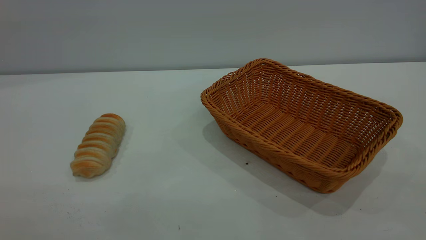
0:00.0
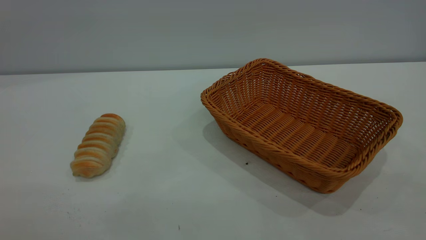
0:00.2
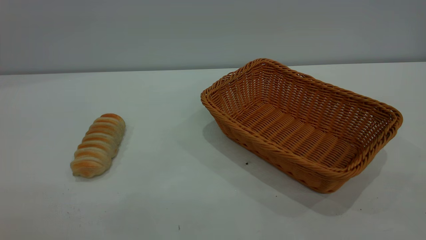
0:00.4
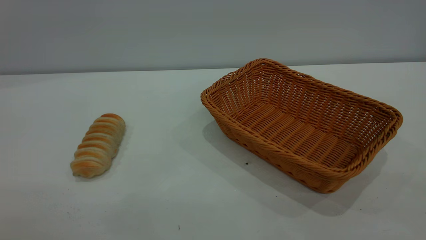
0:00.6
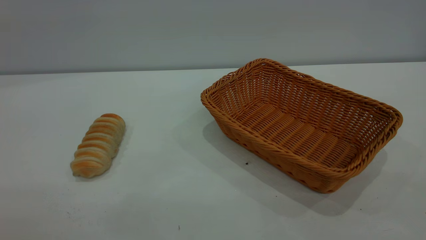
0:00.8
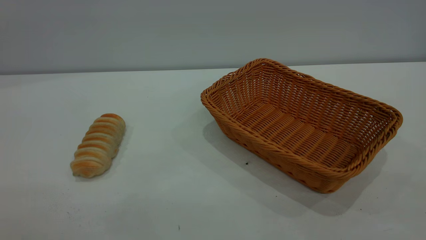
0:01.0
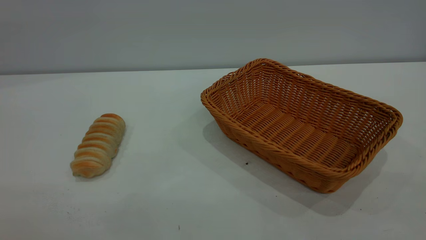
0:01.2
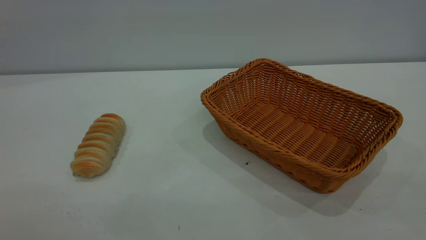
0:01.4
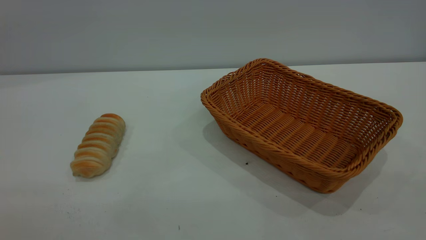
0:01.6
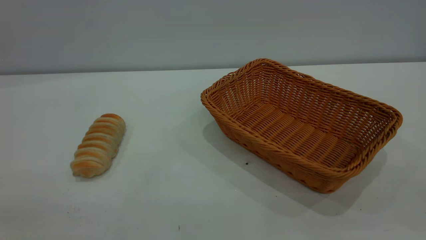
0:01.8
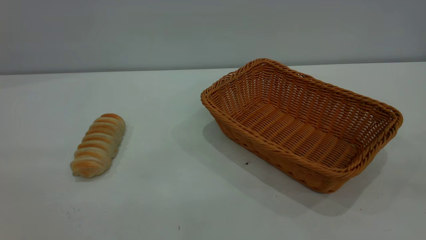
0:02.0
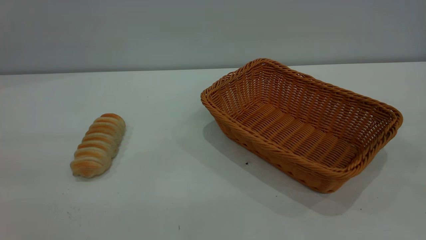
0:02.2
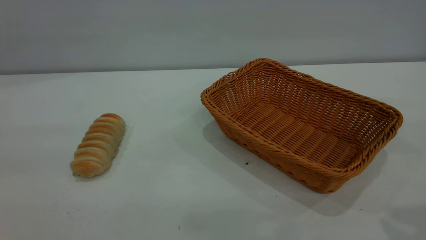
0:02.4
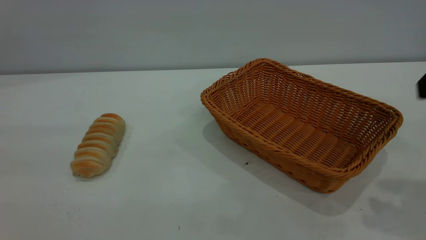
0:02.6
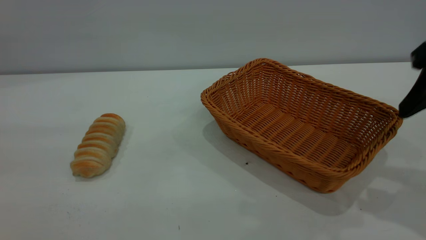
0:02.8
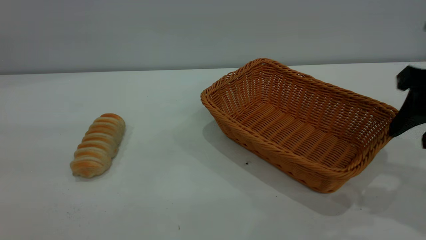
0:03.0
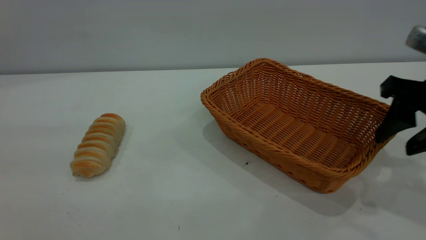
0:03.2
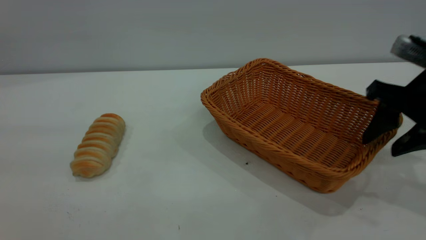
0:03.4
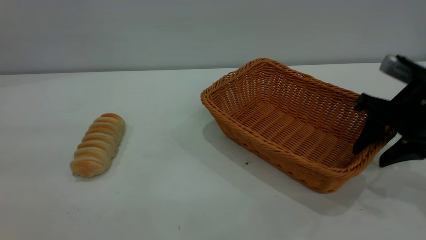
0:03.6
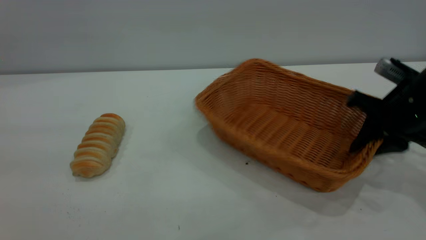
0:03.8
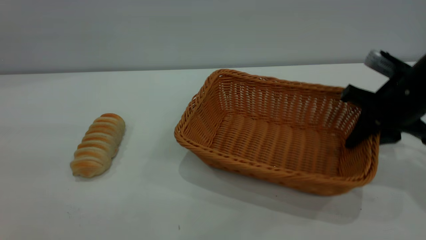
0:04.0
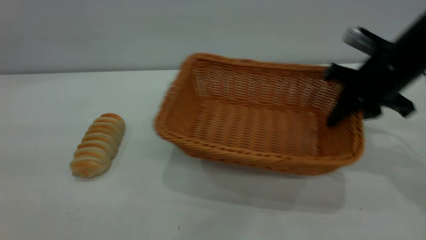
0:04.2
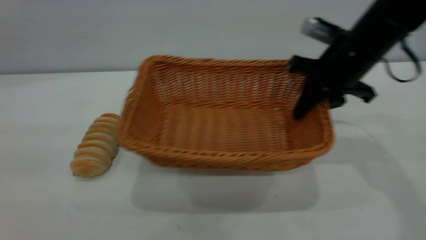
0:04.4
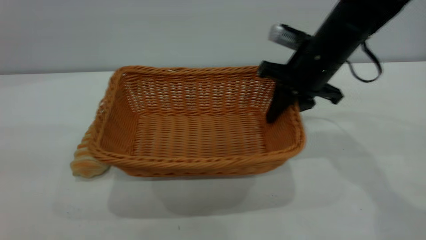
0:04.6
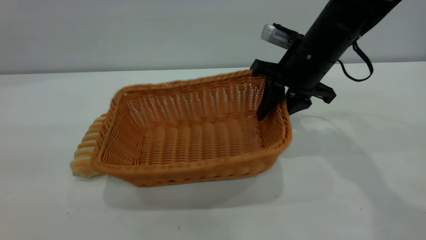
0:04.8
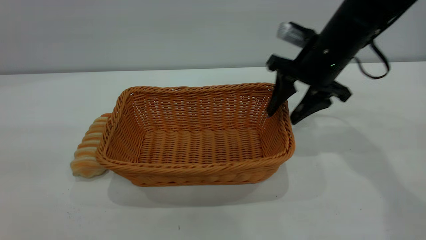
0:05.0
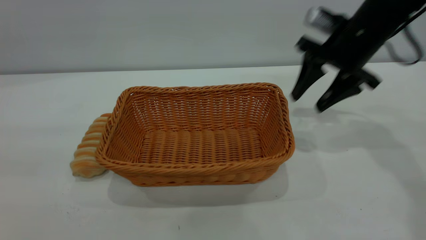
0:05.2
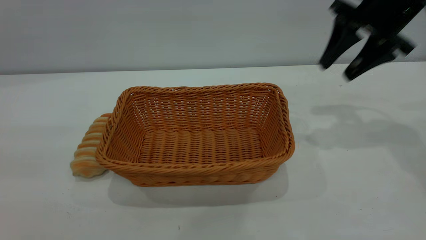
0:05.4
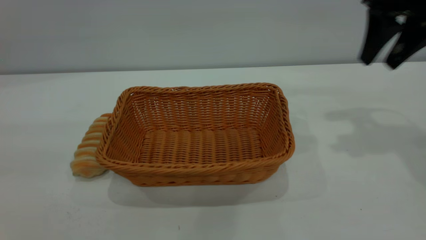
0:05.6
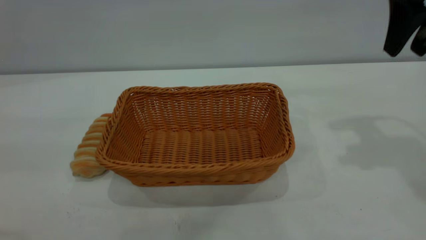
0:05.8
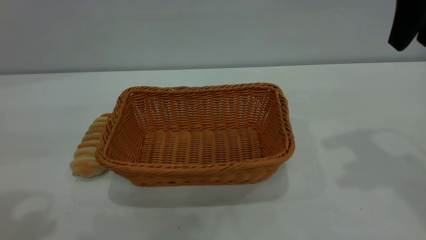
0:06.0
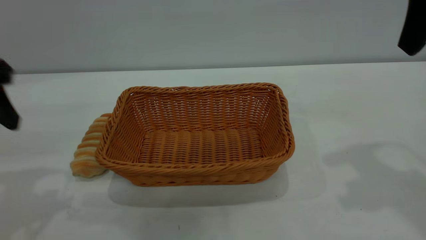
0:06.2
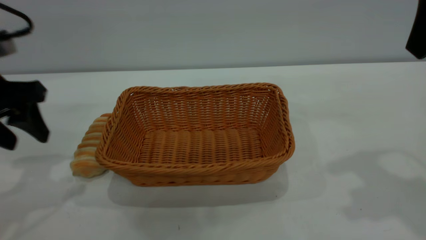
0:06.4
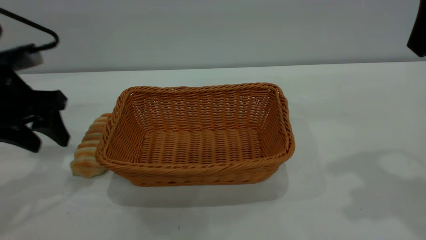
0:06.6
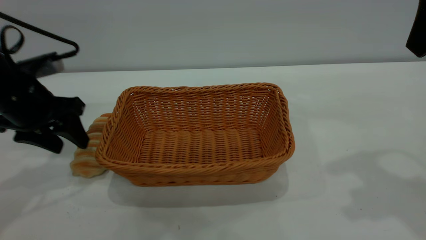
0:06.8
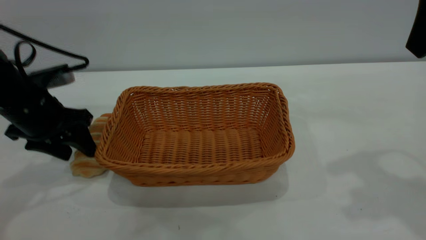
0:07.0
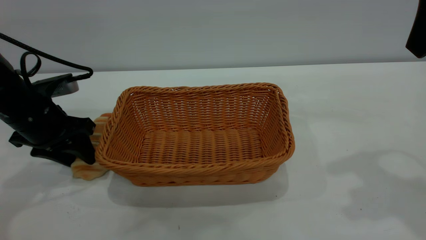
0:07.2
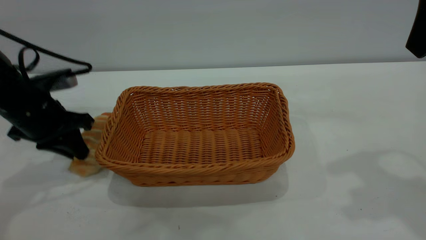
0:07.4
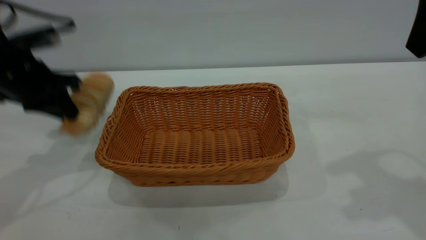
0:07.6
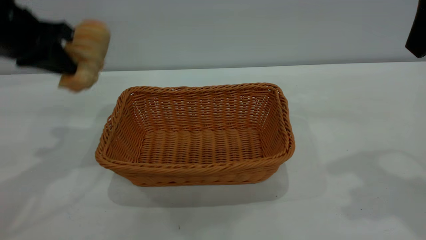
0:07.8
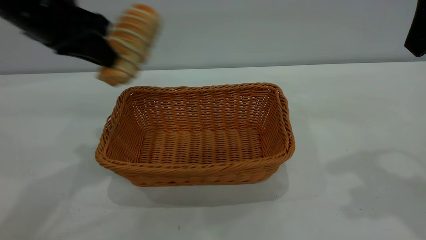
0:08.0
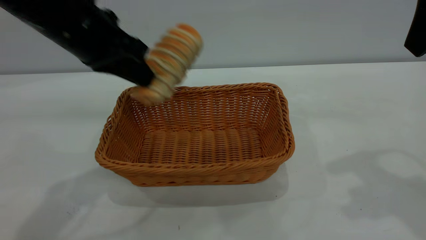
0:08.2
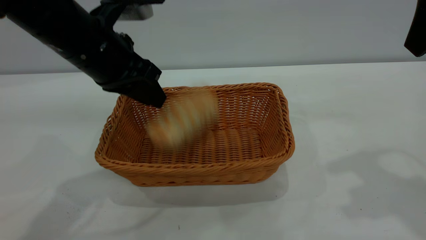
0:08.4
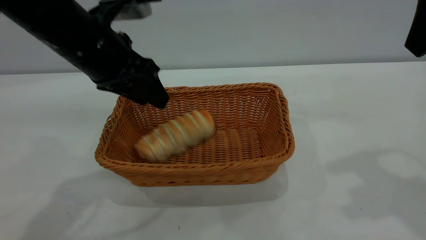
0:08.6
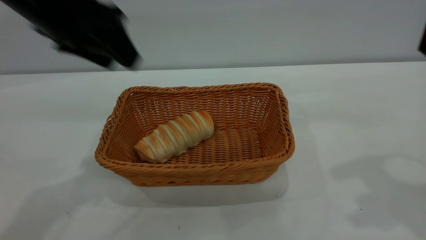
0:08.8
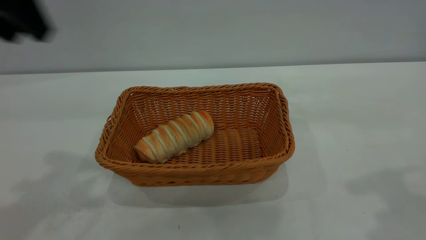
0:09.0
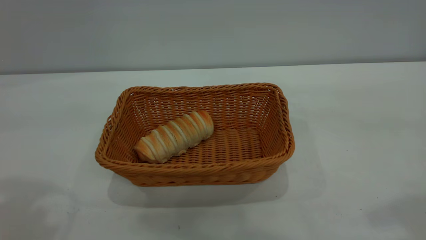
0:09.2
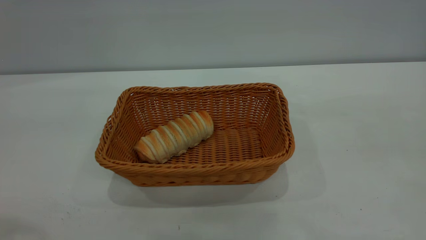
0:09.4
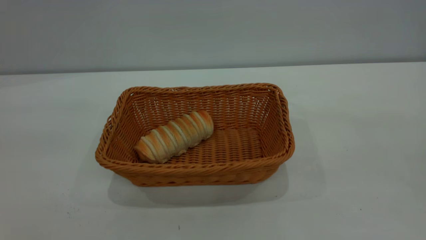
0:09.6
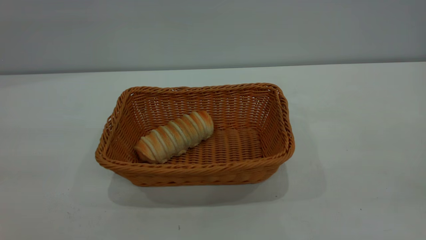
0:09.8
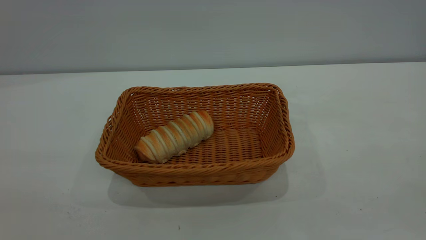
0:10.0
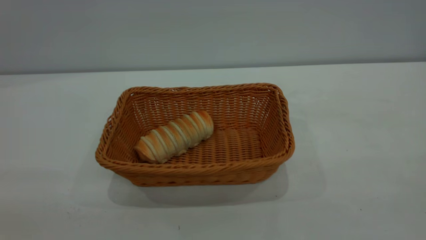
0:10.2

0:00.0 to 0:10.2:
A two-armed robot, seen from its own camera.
Task of the whole recording: One hand grasps the yellow basket and places it in the middle of the table, while the other hand picks up the long bread and puts it into the yellow basket.
Step, 0:00.0 to 0:05.0: Move the basket to the center of view.
Step, 0:07.6 to 0:08.6: place the bread into the basket.
0:00.0 to 0:01.4: The two grippers keep their place.
0:01.4 to 0:03.0: The right gripper shifts roughly 30 cm forward and downward.
0:03.0 to 0:04.4: The right gripper heads forward and to the left, covering some 15 cm, and closes its fingers.
0:04.4 to 0:05.8: The left gripper moves forward, some 10 cm. Meanwhile the right gripper shifts about 15 cm upward and to the right, and opens its fingers.
0:05.8 to 0:07.2: The right gripper shifts roughly 10 cm backward, while the left gripper is displaced downward and forward by some 30 cm.
0:07.2 to 0:08.8: The left gripper moves up and down over roughly 20 cm, changing direction 2 times, and closes, then reopens.
0:08.8 to 0:10.2: The left gripper goes about 35 cm backward.

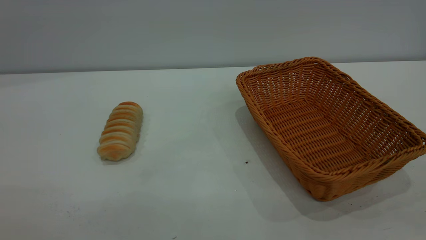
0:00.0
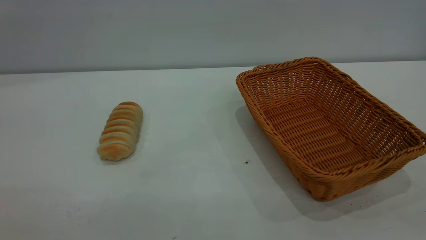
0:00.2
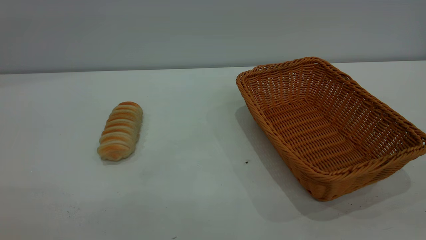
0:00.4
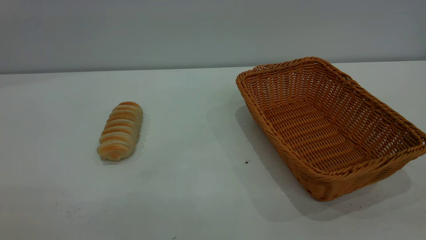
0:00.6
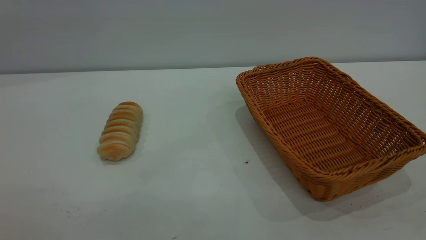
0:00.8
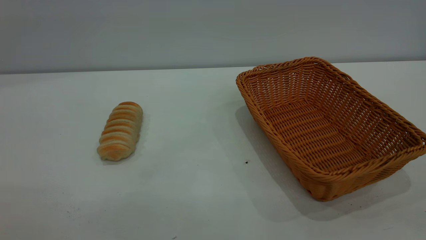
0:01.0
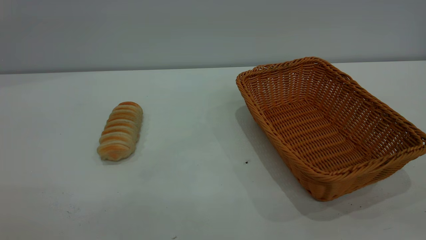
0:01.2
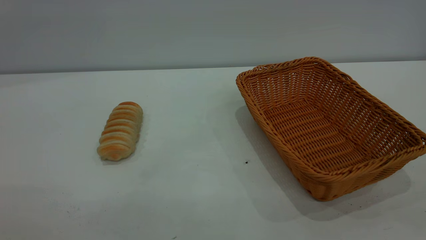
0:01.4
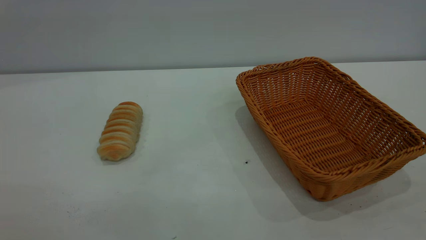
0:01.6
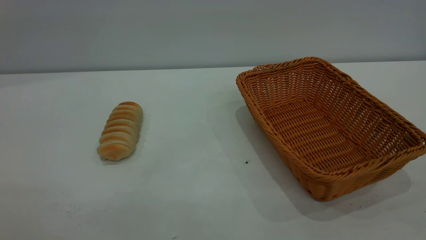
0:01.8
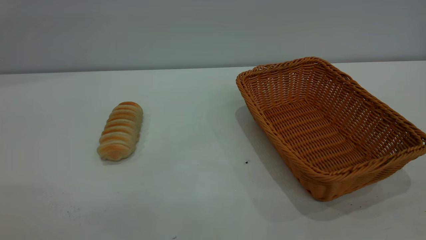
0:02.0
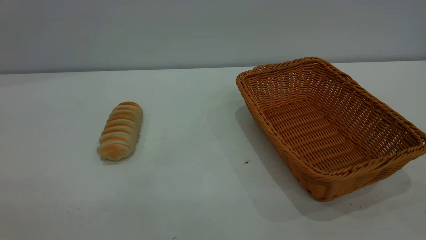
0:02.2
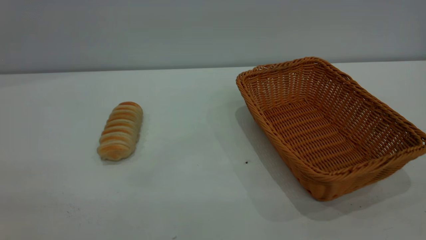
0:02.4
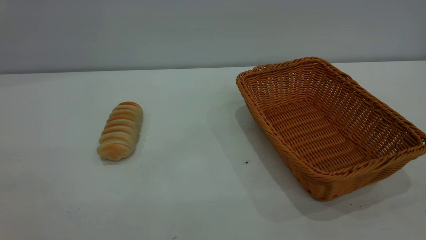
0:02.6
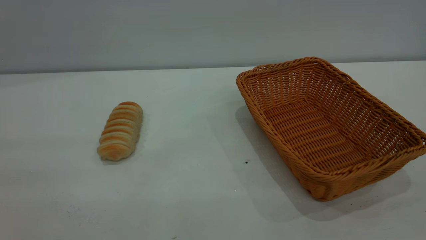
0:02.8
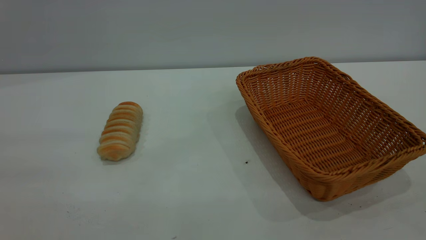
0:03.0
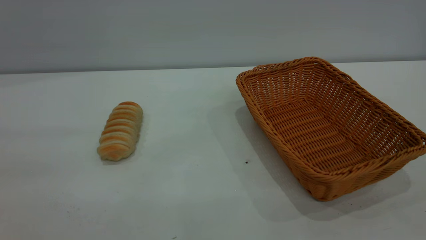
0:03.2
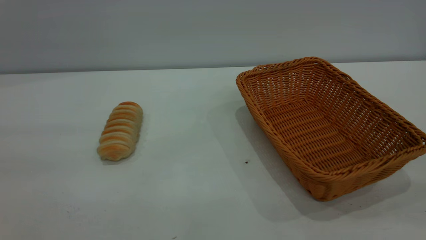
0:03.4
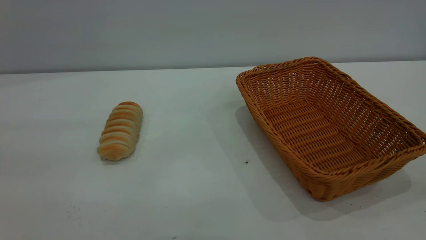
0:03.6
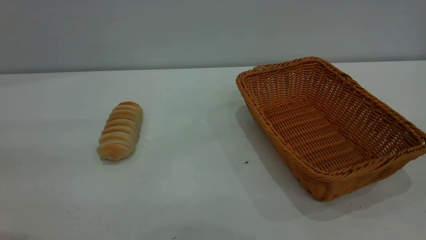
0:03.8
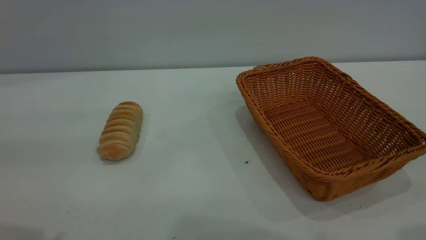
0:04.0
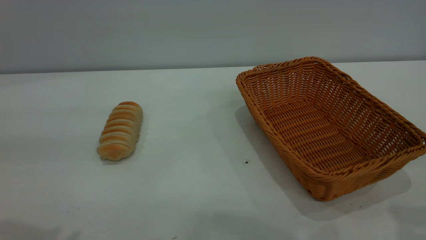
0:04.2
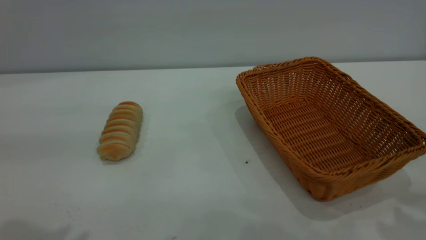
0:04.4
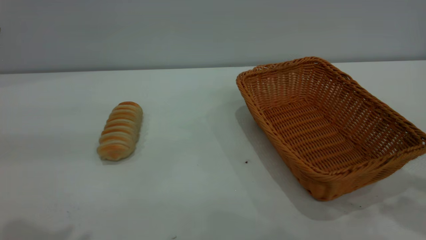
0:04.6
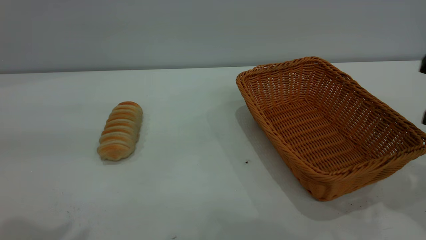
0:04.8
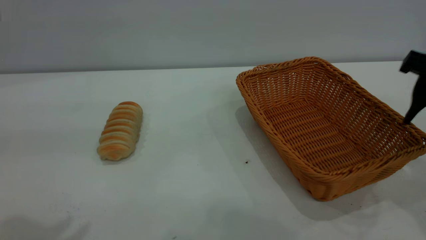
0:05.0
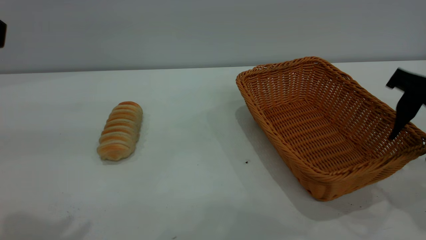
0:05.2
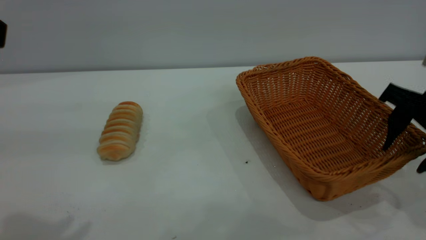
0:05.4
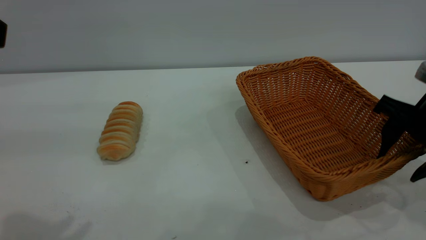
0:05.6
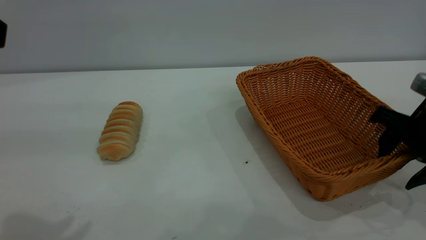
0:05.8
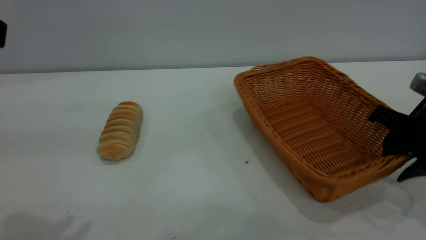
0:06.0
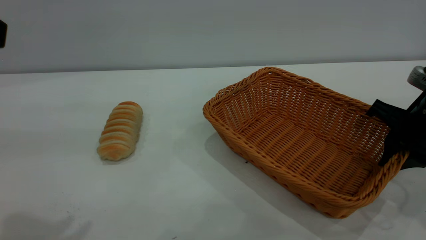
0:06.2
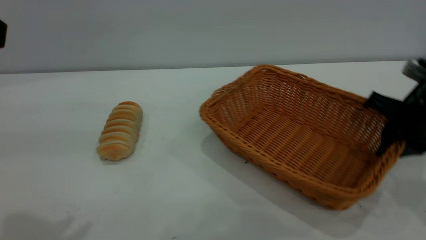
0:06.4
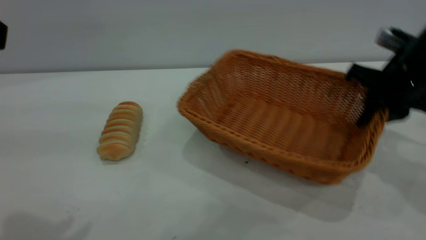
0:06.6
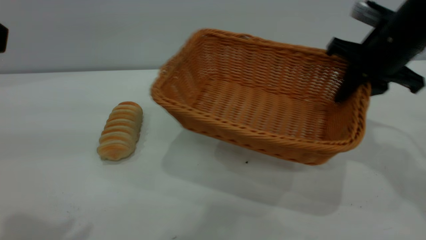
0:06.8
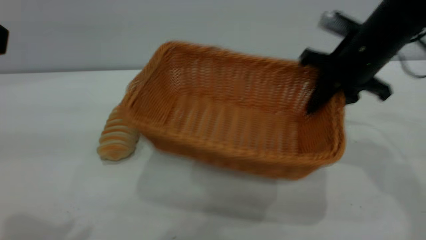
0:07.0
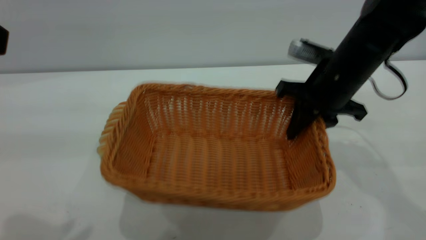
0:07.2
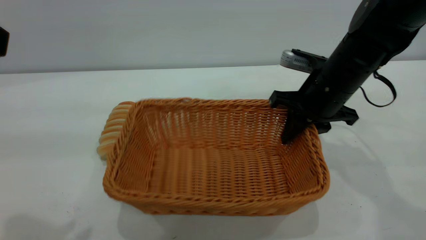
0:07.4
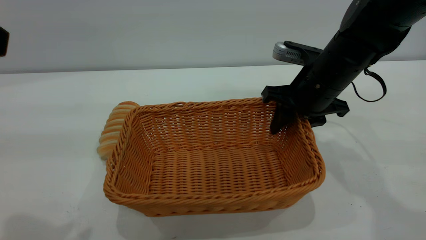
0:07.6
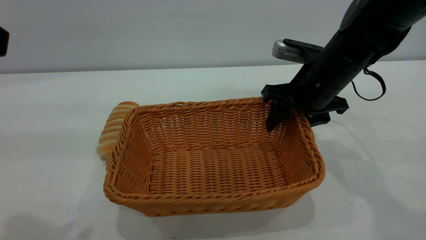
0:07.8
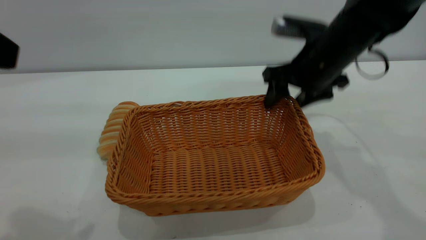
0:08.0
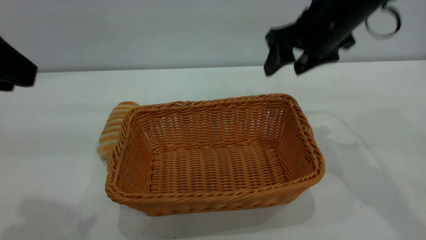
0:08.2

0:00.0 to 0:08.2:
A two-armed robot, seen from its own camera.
Task of the whole recording: One hand grasps the yellow basket and places it in the middle of the table, while the other hand picks up the long bread and puts it into the yellow basket.
Step, 0:00.0 to 0:08.0: Move the basket to the center of view.
0:03.2 to 0:05.0: The right gripper moves forward and downward, about 30 cm, and opens.
0:05.0 to 0:06.6: The right gripper goes approximately 10 cm forward, and closes.
0:06.6 to 0:08.2: The right gripper travels to the left and upward by some 10 cm, and opens.
